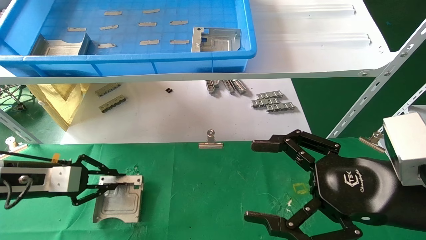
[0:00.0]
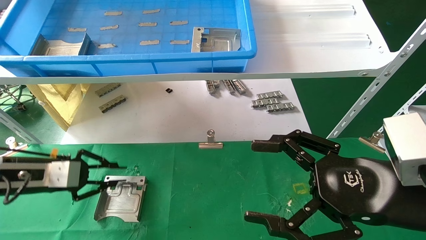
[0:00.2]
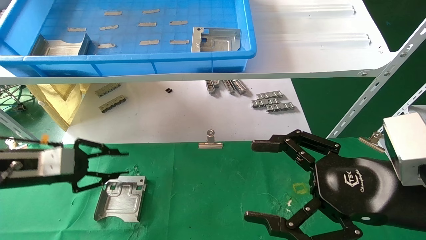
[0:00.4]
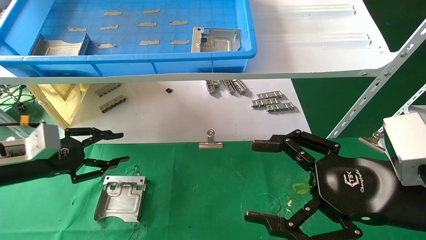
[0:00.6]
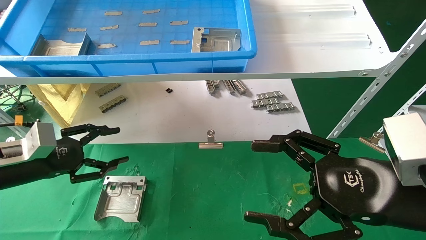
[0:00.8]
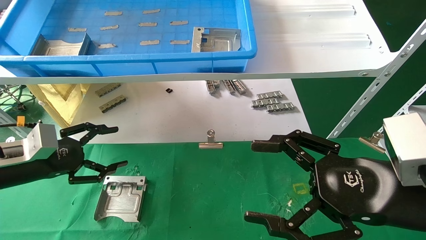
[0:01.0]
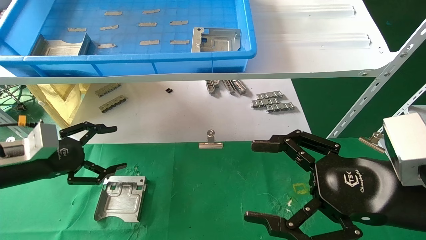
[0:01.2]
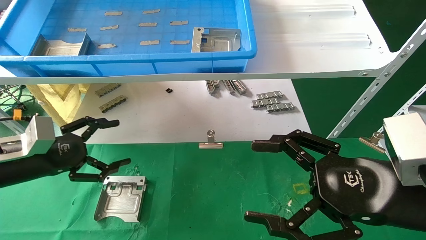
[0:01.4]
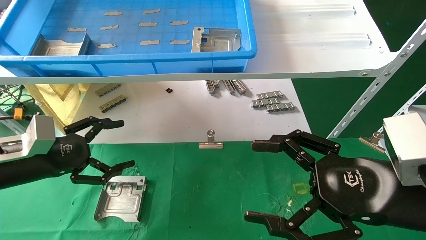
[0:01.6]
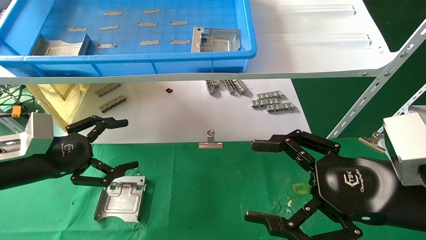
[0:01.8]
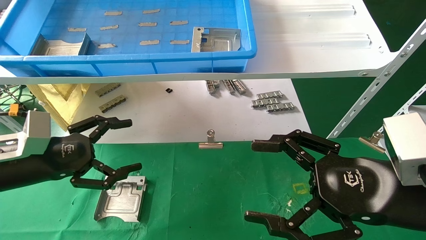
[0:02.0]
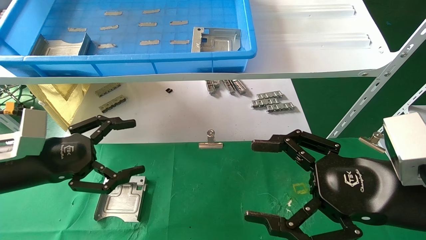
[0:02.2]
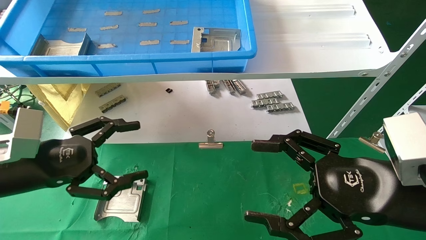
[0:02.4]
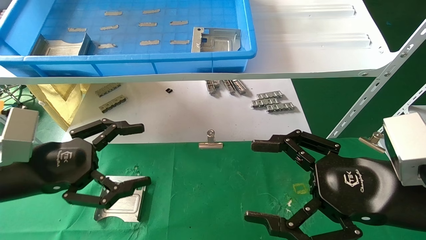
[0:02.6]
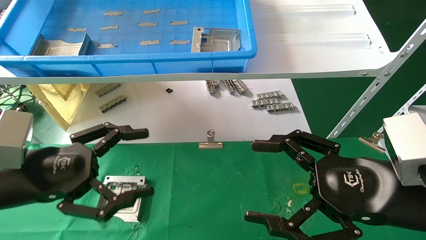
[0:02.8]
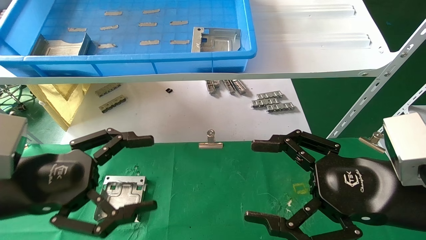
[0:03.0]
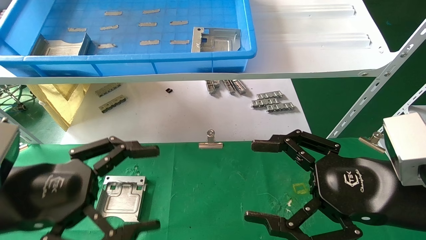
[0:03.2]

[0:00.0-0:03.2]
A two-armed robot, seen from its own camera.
Task of the whole recording: use the mechanical arm to pick up the parts and place them on the table.
0:00.0 to 0:01.6: The left gripper opens its fingers.
0:01.6 to 0:03.2: The left gripper heads backward and to the right, covering about 15 cm.

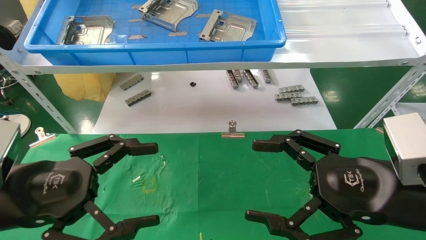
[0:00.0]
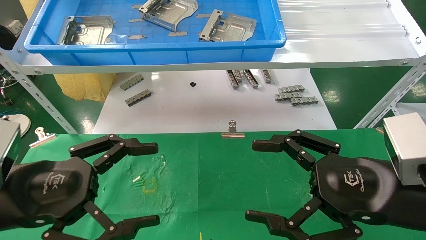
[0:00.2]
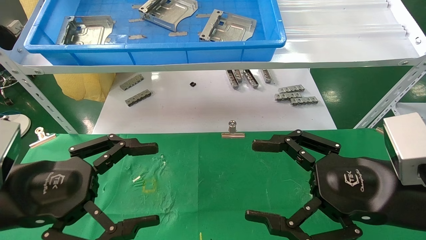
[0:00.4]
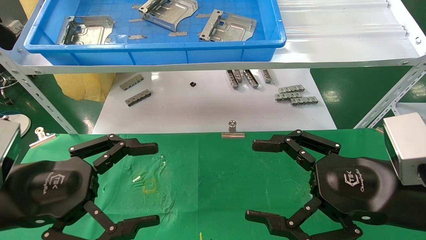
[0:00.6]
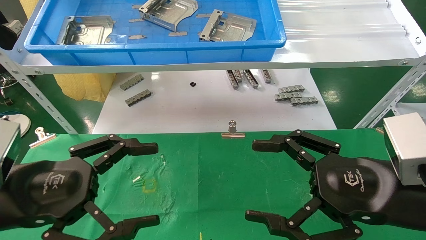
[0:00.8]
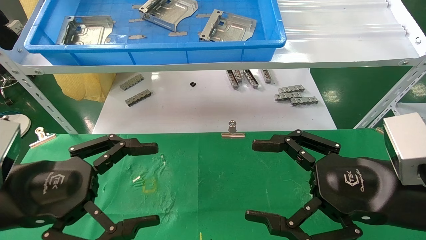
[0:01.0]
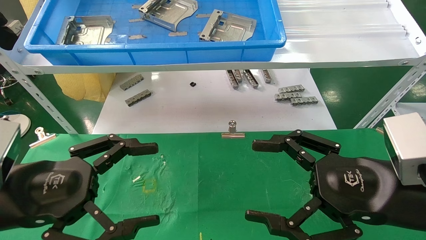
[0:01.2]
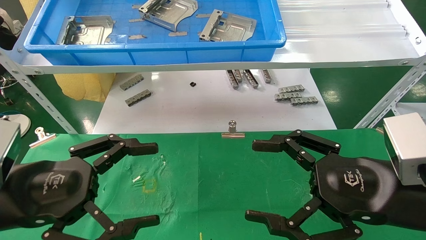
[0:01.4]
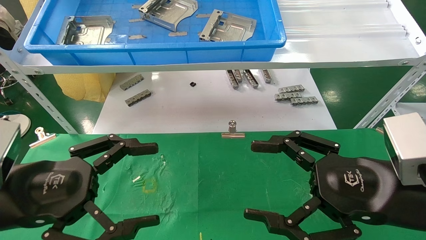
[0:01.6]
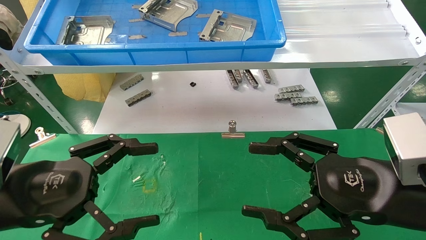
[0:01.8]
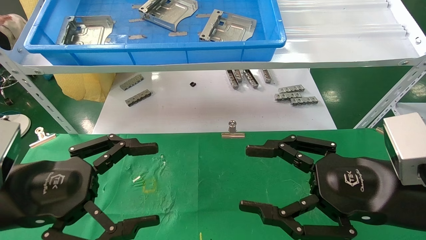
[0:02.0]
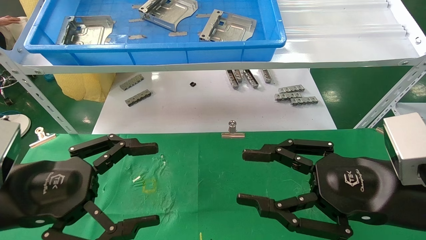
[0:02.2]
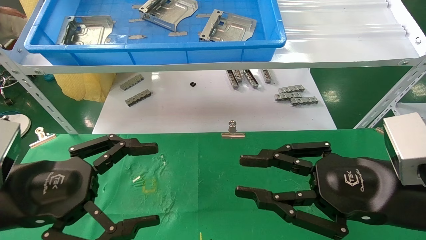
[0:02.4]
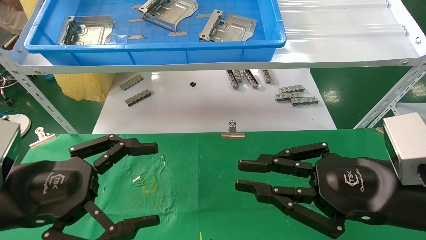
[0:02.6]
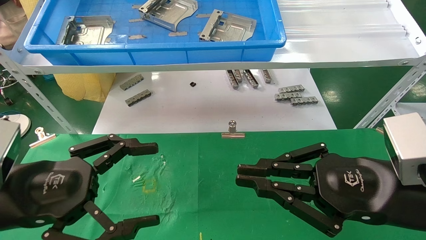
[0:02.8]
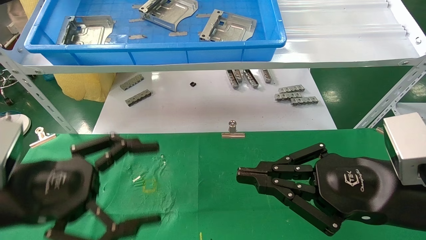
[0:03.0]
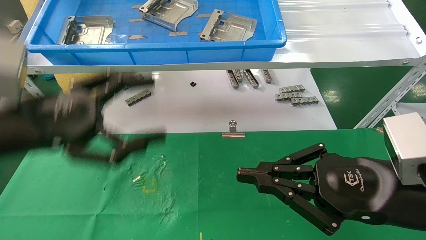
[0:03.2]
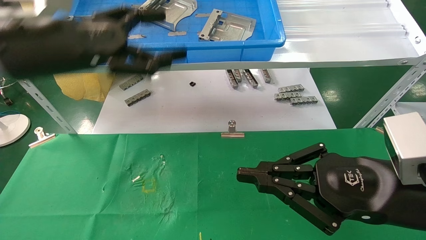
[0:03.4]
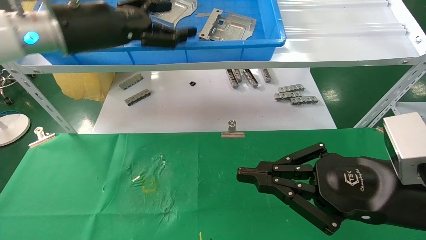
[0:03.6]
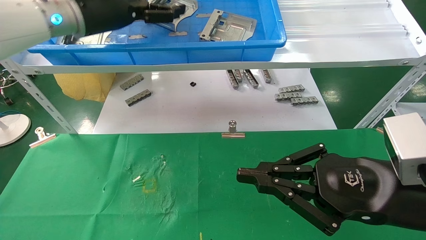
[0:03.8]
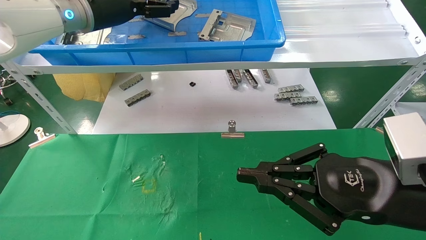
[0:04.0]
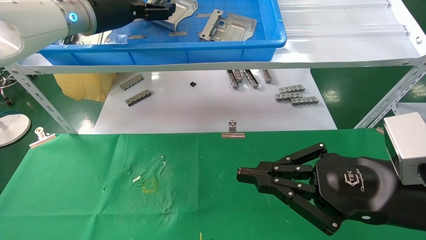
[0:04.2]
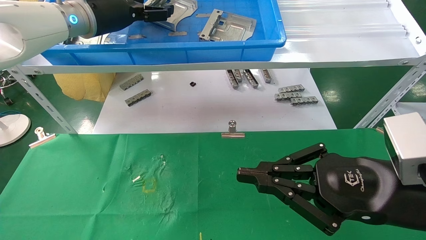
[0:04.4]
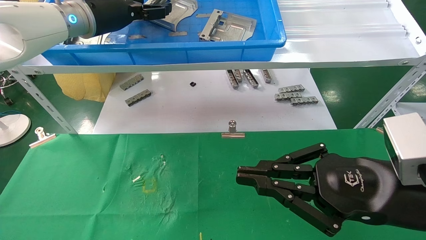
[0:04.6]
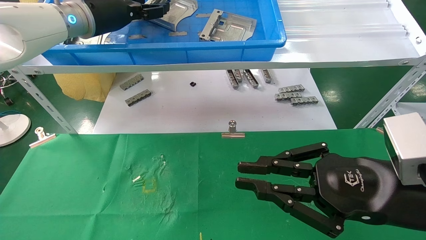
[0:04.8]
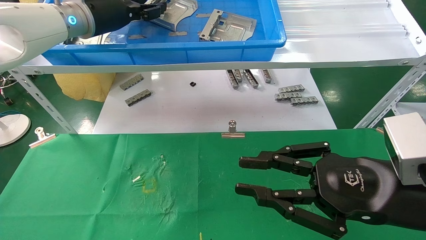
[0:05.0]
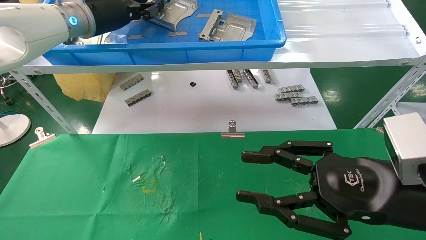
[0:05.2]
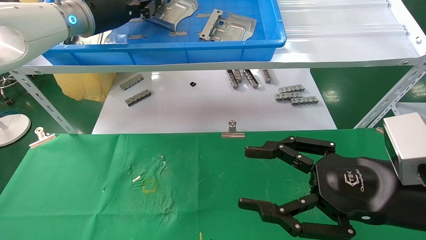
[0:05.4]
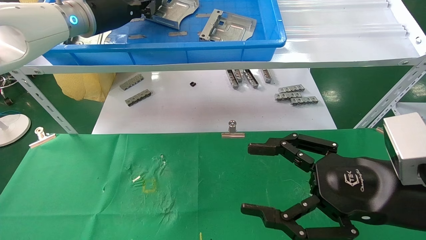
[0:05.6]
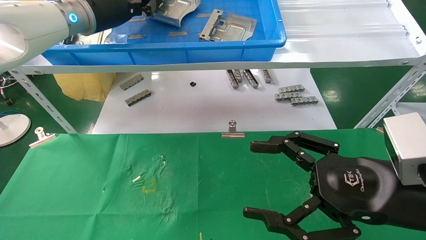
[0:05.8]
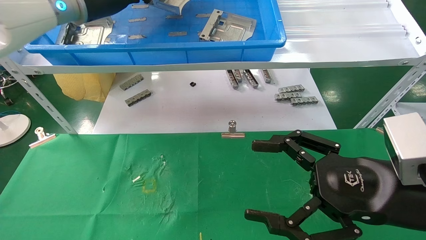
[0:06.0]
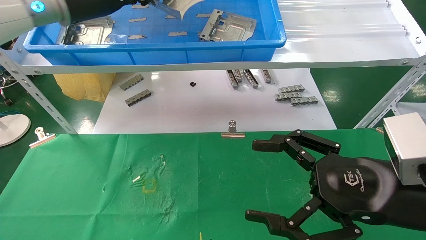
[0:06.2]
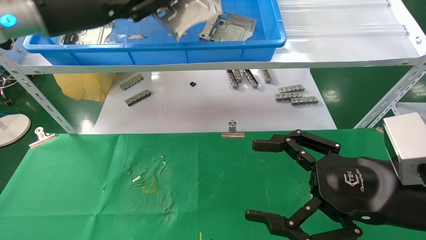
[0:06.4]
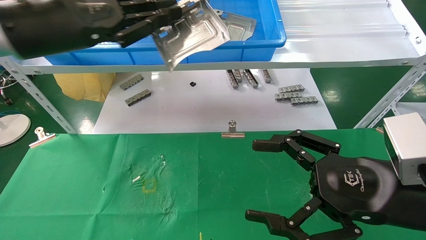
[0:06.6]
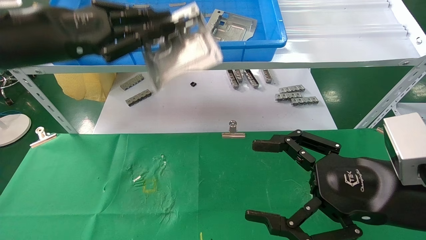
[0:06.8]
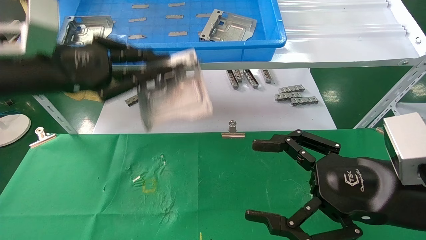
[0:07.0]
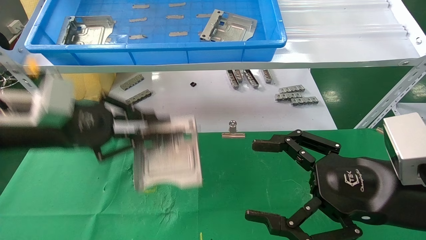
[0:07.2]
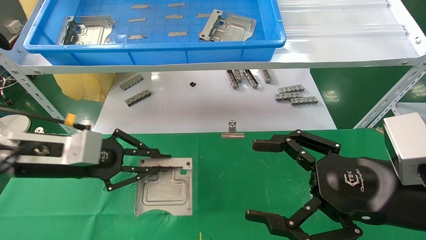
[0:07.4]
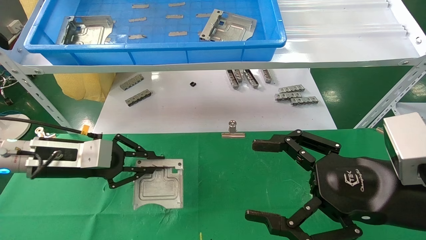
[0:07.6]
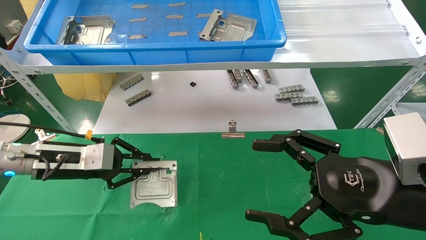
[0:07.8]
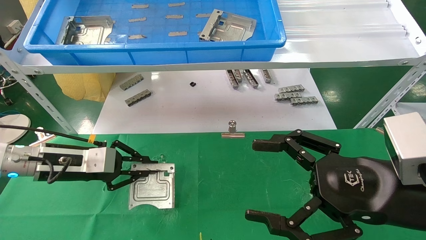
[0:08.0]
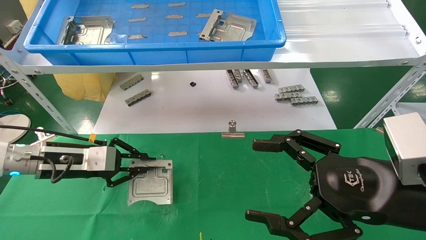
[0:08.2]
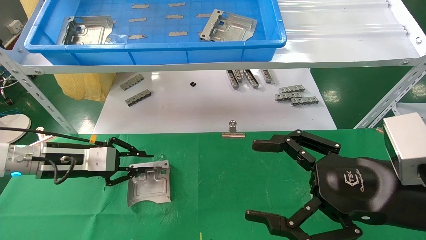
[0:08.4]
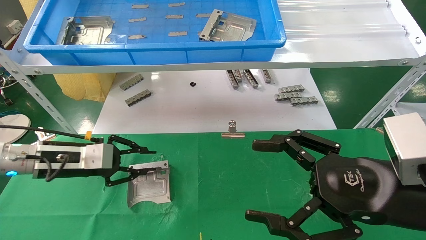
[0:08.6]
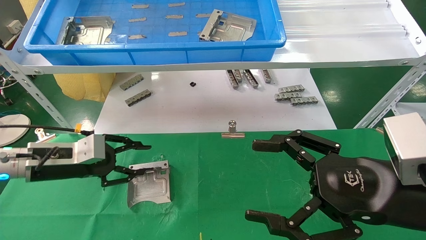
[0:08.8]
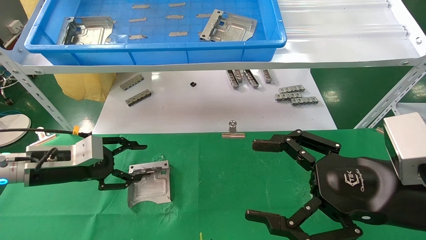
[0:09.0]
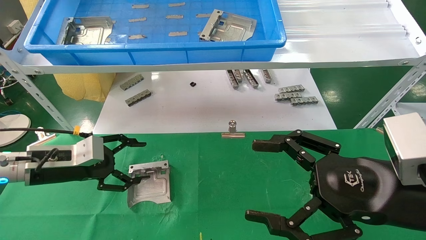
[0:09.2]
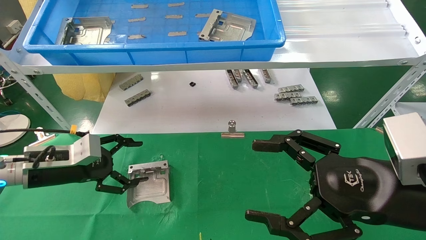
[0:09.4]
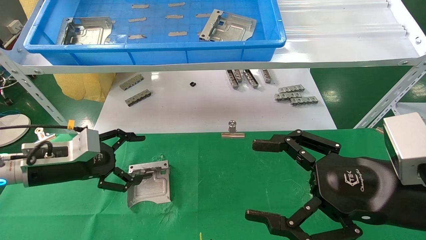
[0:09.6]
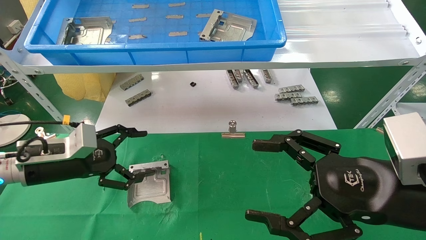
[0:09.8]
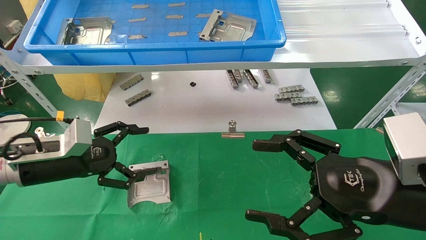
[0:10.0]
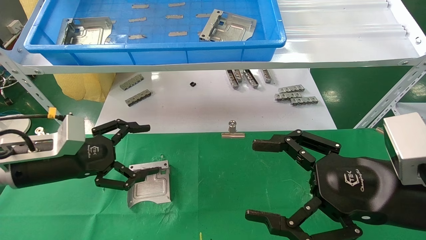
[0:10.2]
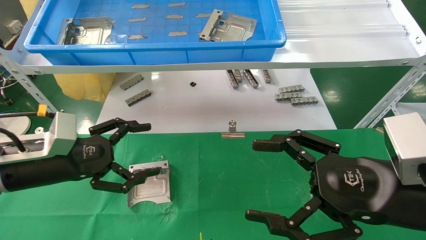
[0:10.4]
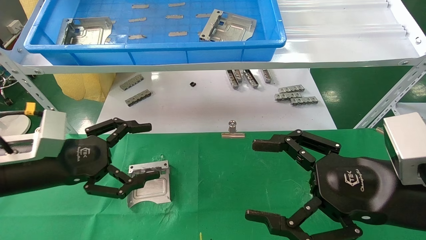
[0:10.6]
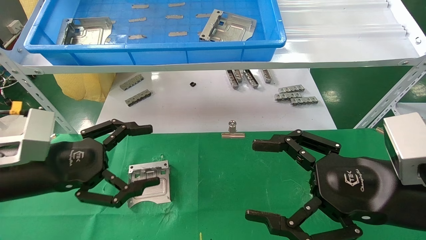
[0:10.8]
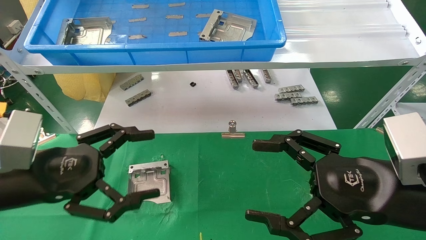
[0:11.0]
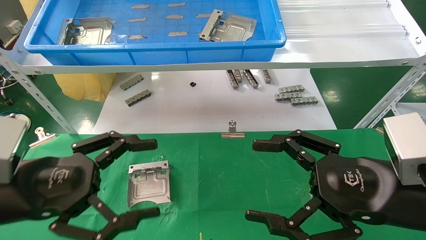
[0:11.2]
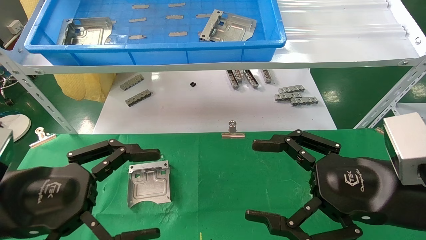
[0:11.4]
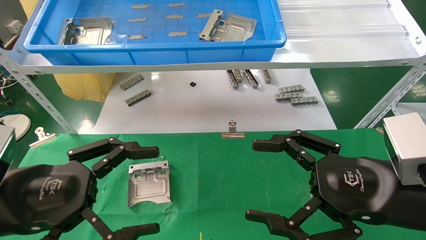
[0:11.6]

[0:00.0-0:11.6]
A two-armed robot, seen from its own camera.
Task of the whole recording: use the mechanical arm to pick up the parts and place them on the table.
Step, 0:03.4 to 0:05.4: Pick up the hard drive bracket from the feeding area.
Step, 0:05.6 to 0:08.4: Place the hard drive bracket into the box.
0:00.0 to 0:01.4: Neither gripper changes place.
0:01.4 to 0:02.8: The right gripper closes up.
0:02.8 to 0:04.4: The left gripper heads forward and upward, covering some 35 cm.
0:04.4 to 0:05.8: The left gripper closes; the right gripper opens up.
0:05.8 to 0:07.2: The left gripper travels downward and backward by about 20 cm.
0:07.2 to 0:08.8: The left gripper is displaced downward and forward by some 10 cm.
0:08.8 to 0:10.2: The left gripper changes place by about 5 cm, and opens up.
0:10.2 to 0:11.6: The left gripper goes about 15 cm backward.
